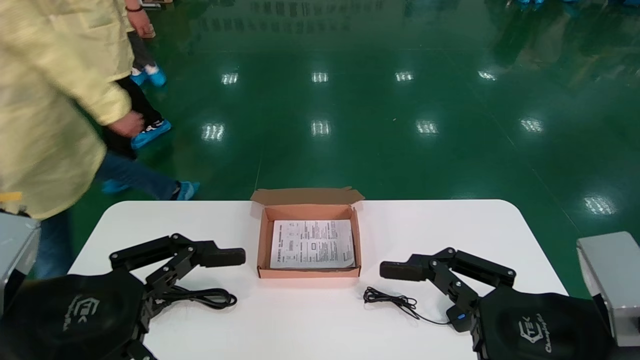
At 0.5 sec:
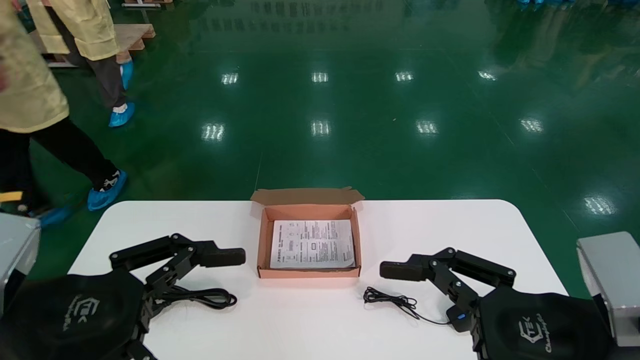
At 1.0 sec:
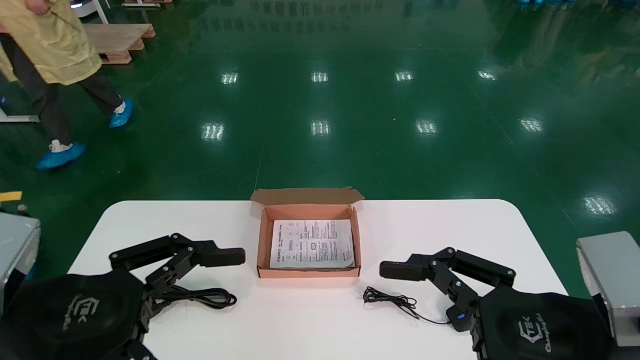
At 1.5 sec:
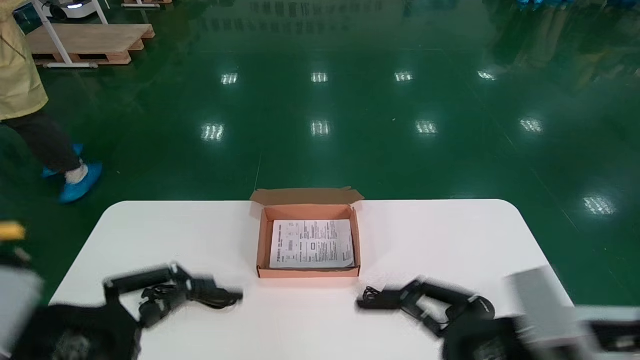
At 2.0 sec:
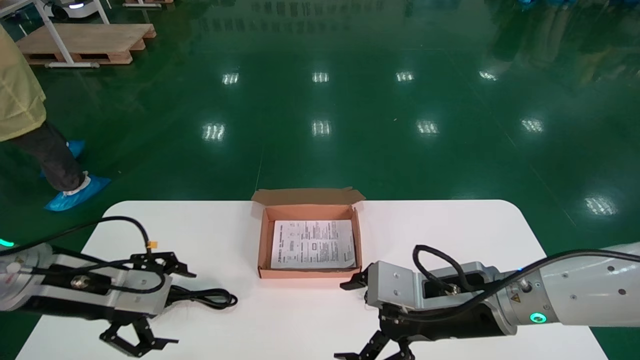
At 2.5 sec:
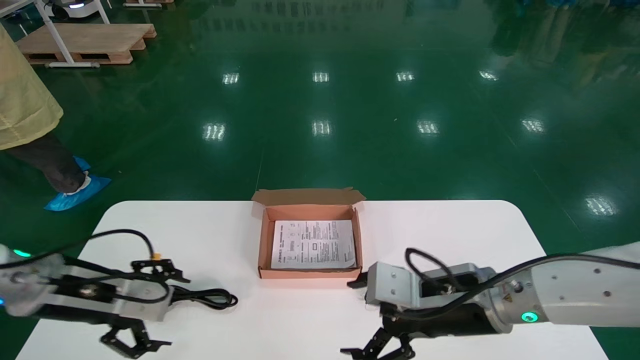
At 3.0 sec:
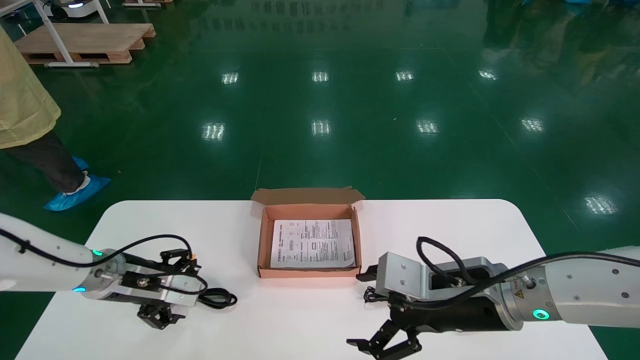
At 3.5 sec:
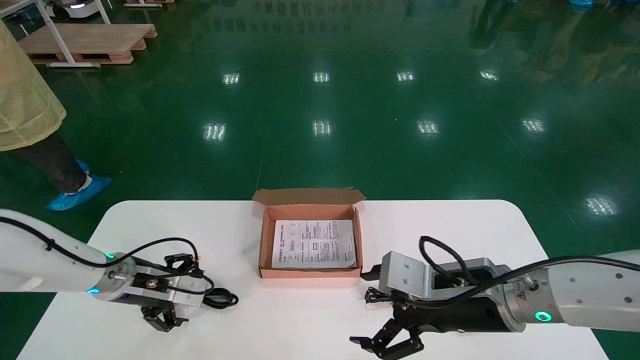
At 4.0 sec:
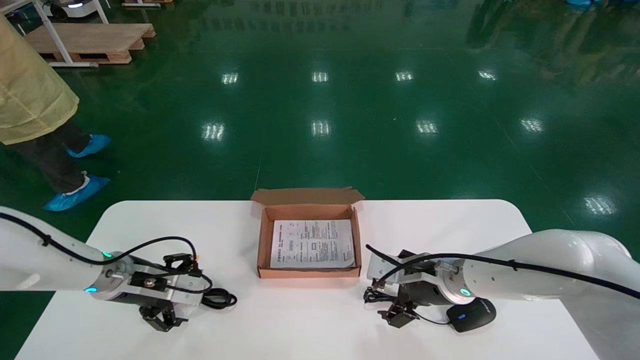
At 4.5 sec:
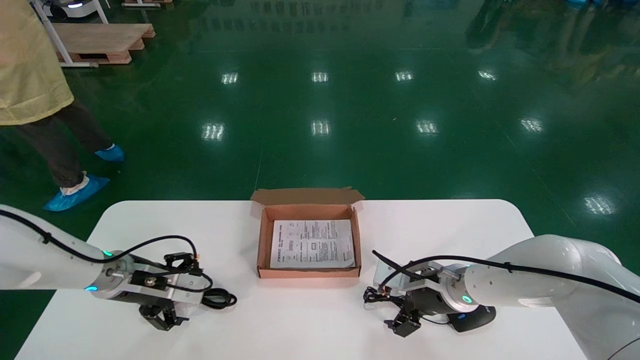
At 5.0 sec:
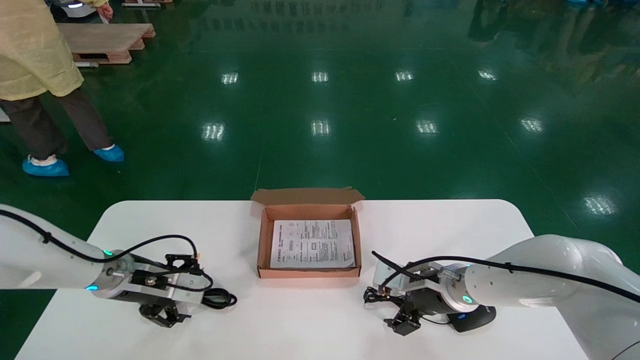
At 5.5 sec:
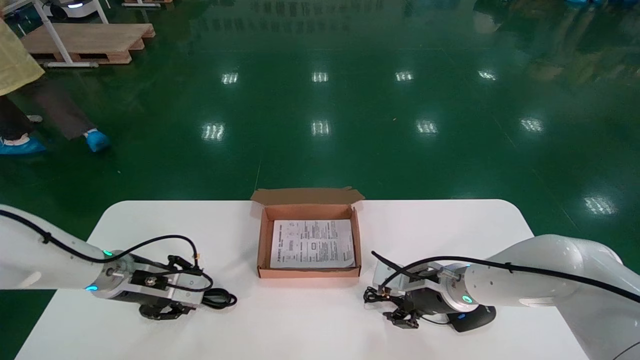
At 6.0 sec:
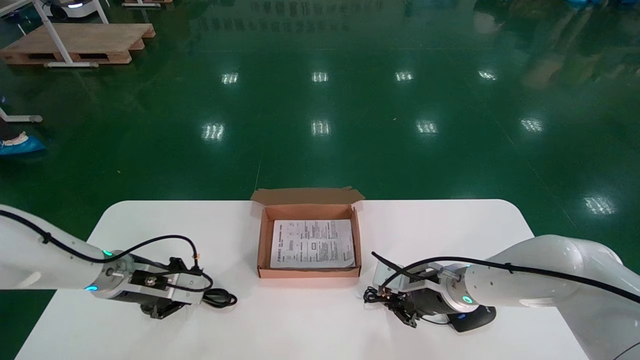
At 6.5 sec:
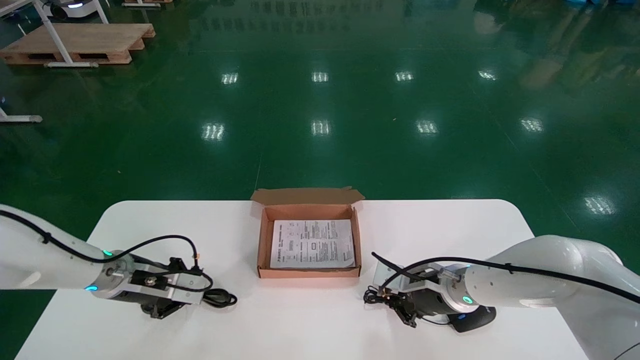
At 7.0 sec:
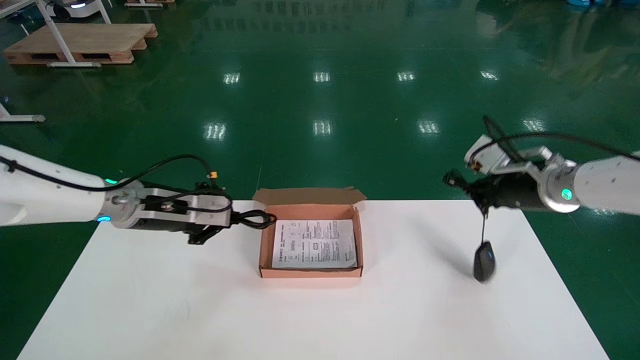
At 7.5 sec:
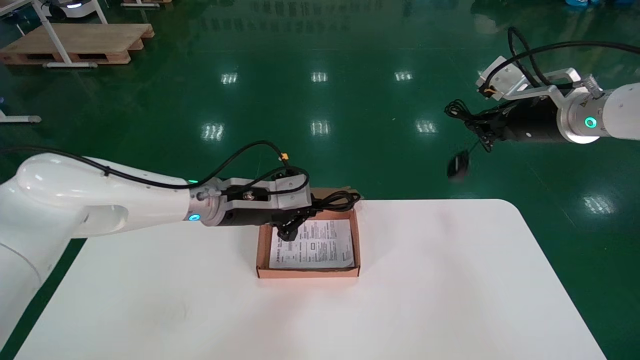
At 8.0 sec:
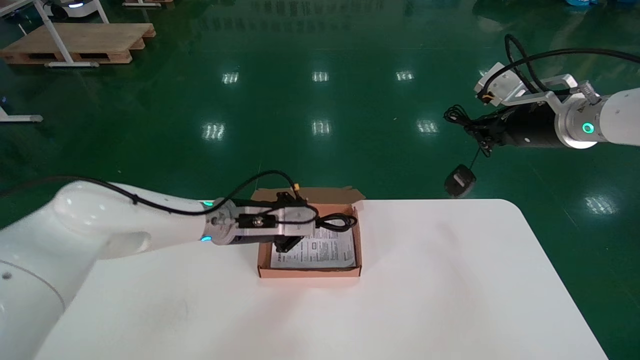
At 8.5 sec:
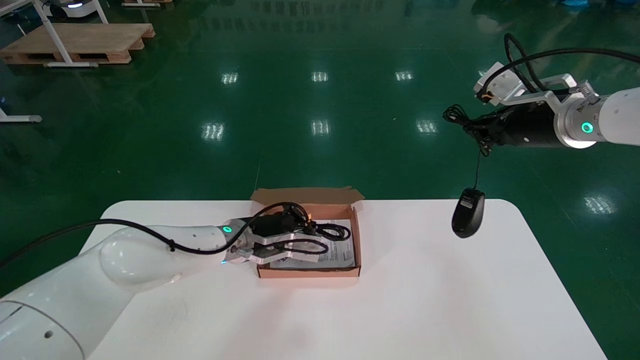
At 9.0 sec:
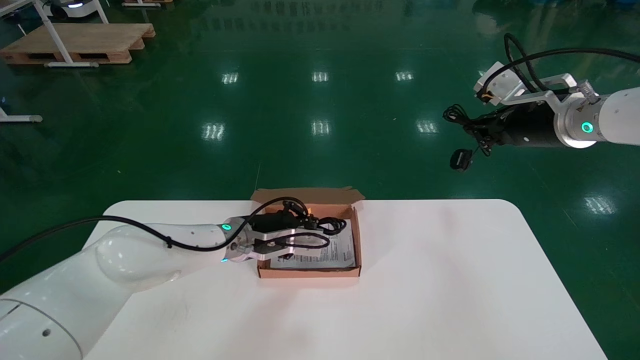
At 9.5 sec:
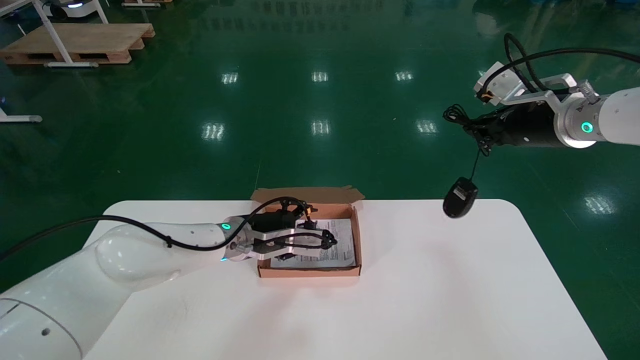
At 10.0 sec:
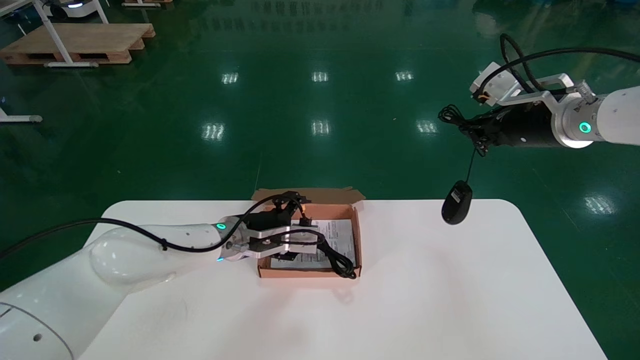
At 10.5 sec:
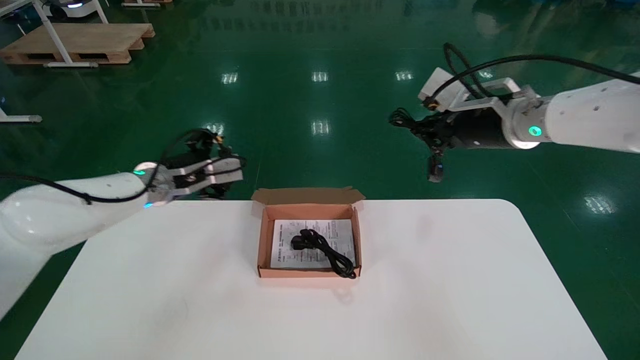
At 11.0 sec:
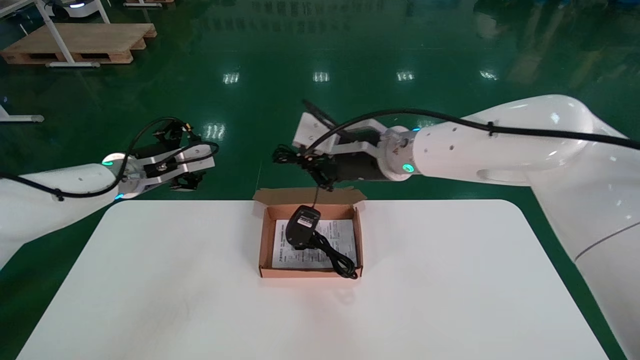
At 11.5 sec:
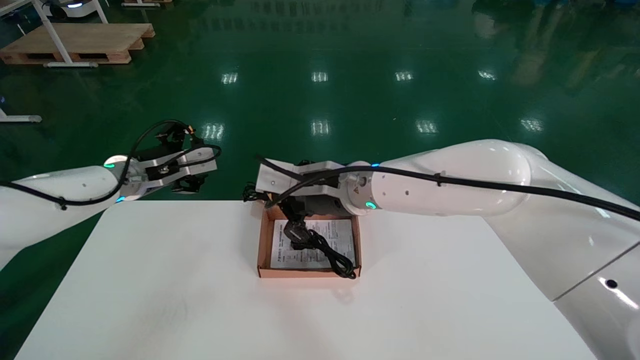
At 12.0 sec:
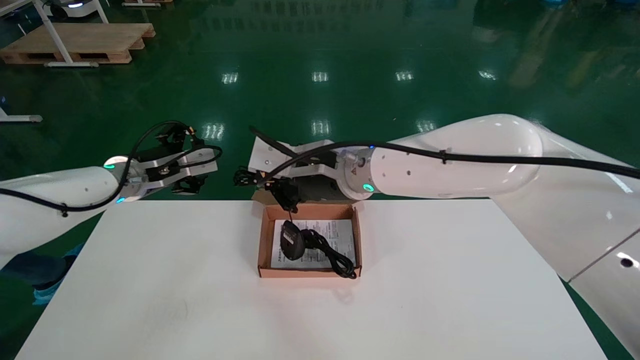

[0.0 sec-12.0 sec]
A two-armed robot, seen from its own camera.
Step, 2.0 sec to 6.5 sec: Simultaneously pick up the mouse and power cord from the accessory packaging area.
0.0 sec to 2.0 sec: The left gripper moves forward, some 10 cm. The right gripper is displaced forward and to the left by roughly 15 cm.
2.0 sec to 4.0 sec: The left gripper goes approximately 15 cm forward and downward, while the right gripper moves forward, some 15 cm.
4.0 sec to 6.0 sec: The left gripper closes its fingers. Meanwhile the right gripper closes its fingers.
6.0 sec to 8.0 sec: The right gripper goes approximately 30 cm upward and to the right. The left gripper is displaced to the right and upward by roughly 20 cm.
8.0 sec to 10.0 sec: The left gripper opens up.
10.0 sec to 12.0 sec: The right gripper moves to the left, roughly 30 cm. Meanwhile the left gripper moves to the left and upward, some 15 cm.

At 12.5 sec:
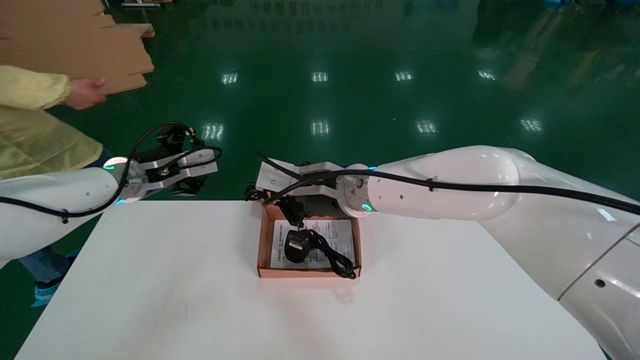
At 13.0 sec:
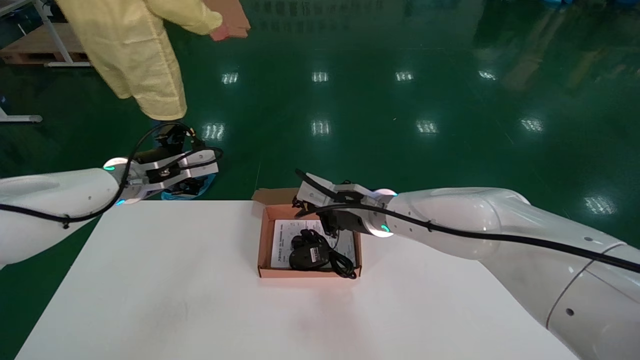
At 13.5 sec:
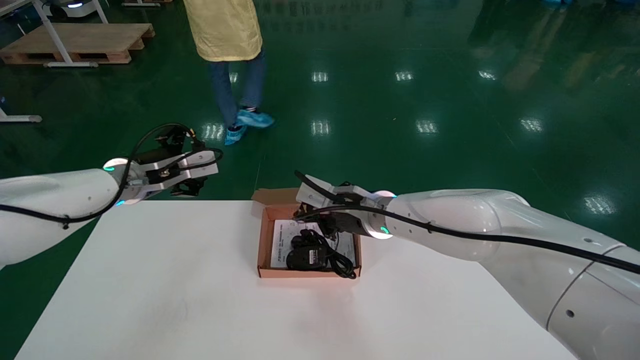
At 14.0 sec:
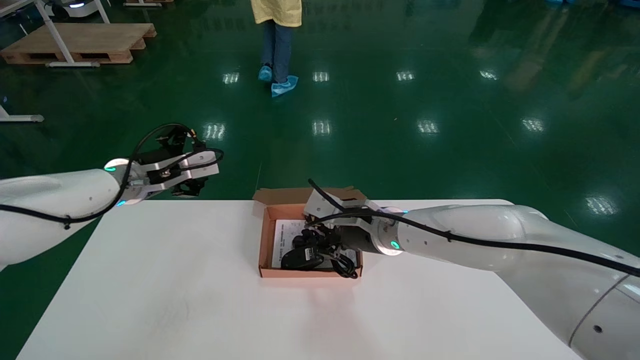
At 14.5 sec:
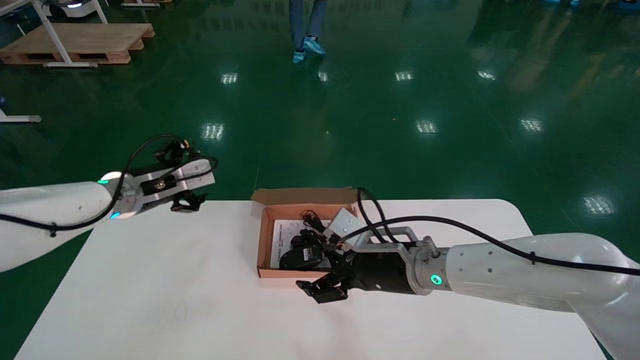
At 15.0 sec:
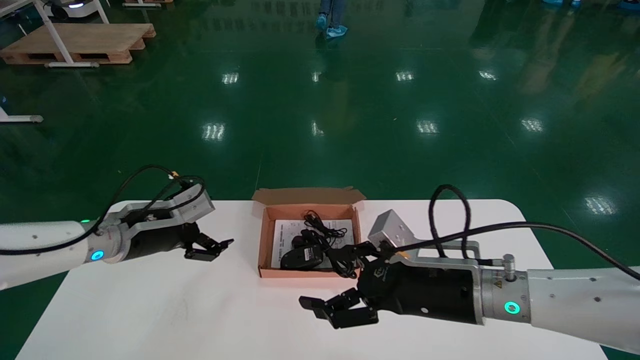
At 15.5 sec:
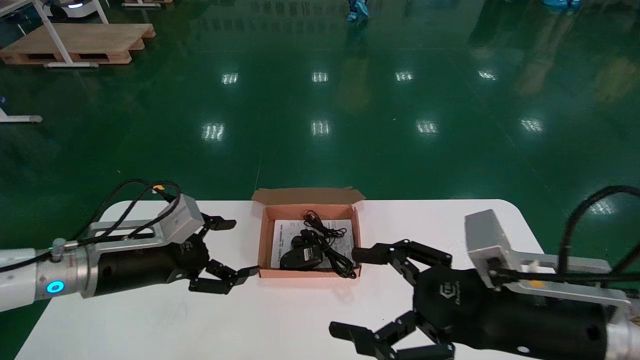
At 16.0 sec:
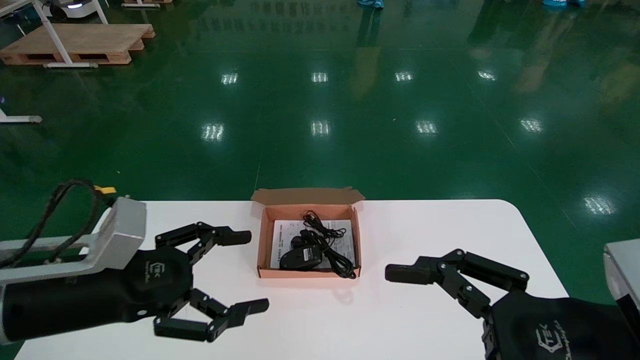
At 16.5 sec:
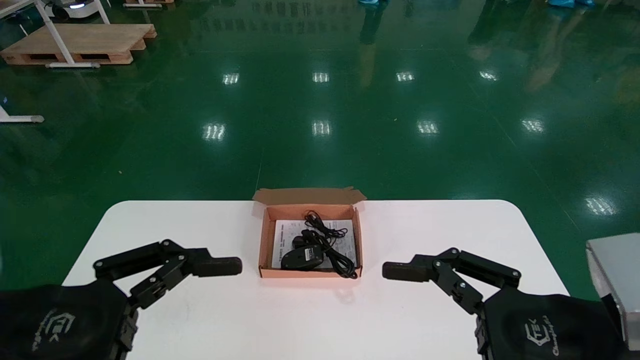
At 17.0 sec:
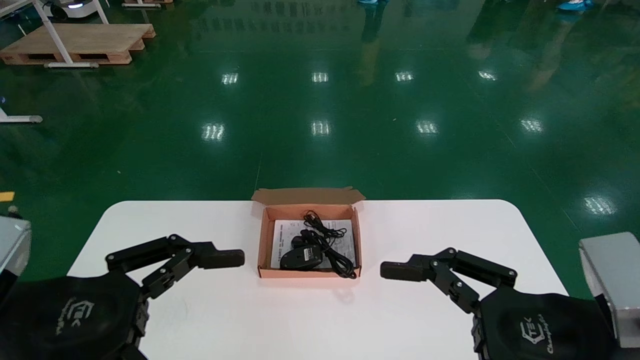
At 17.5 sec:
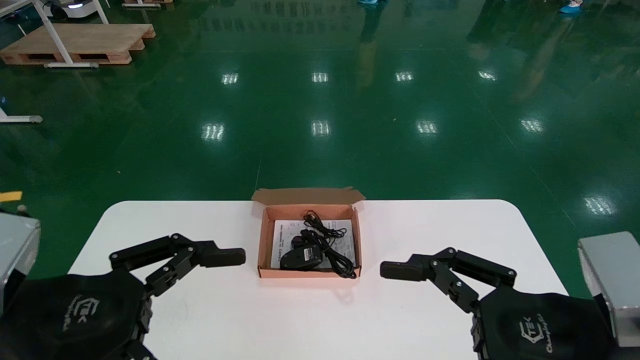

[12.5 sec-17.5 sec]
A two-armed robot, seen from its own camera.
12.5 sec to 15.0 sec: The left gripper goes some 10 cm downward and backward; the right gripper is displaced to the right, downward and backward by approximately 20 cm, and opens up.
15.0 sec to 17.5 sec: The left gripper shifts approximately 25 cm backward, while the right gripper travels backward and to the right by approximately 20 cm.

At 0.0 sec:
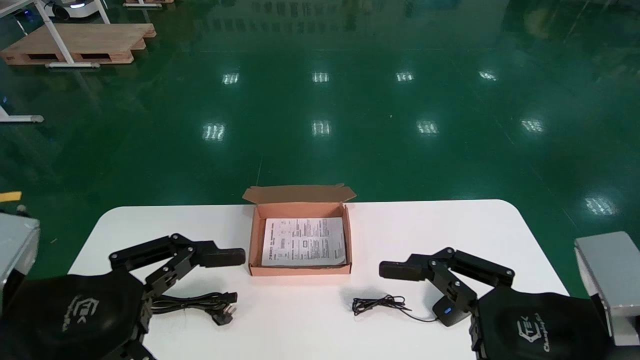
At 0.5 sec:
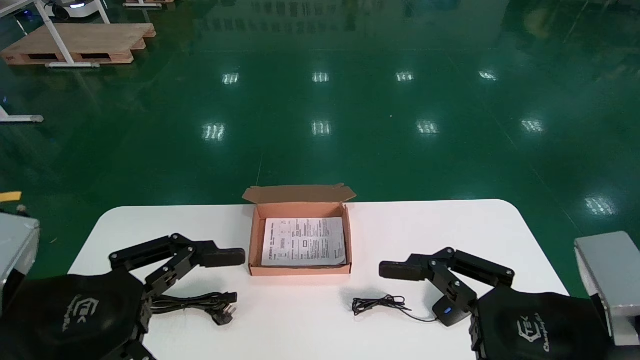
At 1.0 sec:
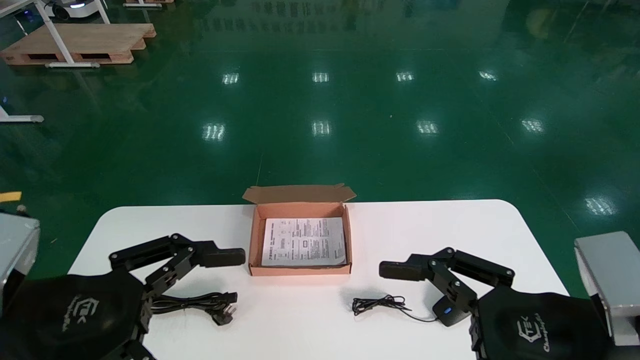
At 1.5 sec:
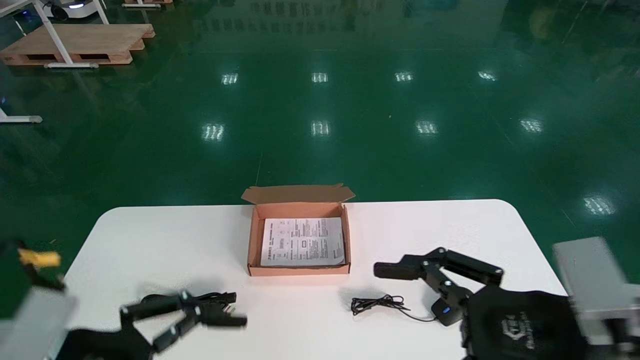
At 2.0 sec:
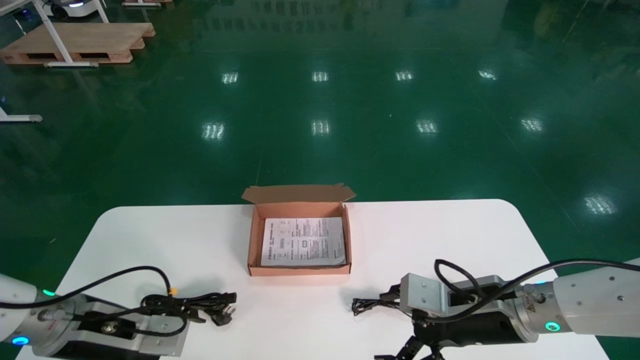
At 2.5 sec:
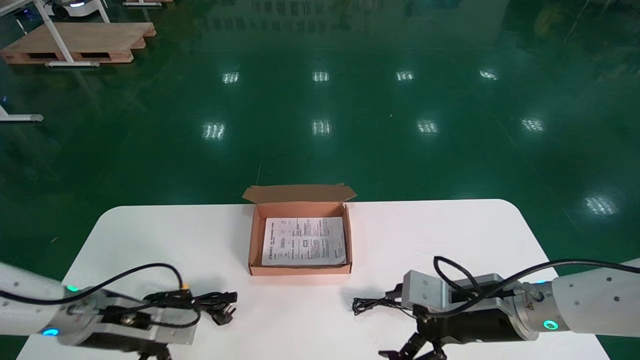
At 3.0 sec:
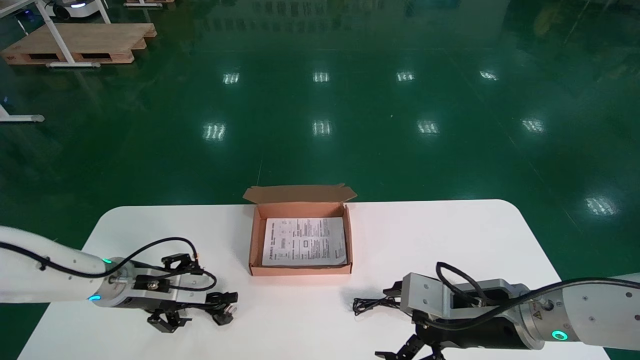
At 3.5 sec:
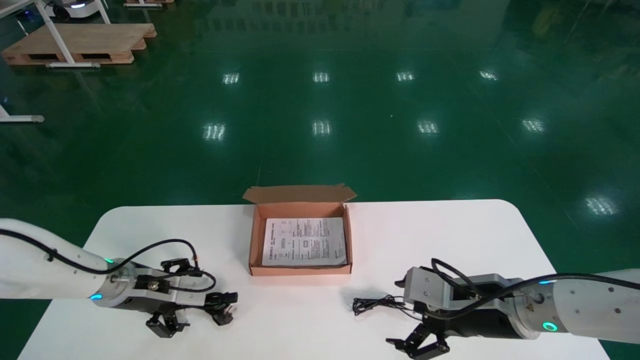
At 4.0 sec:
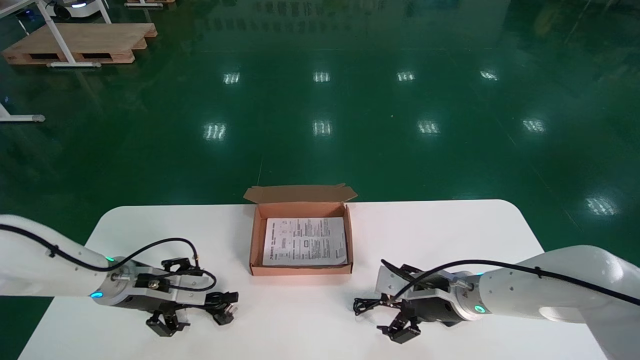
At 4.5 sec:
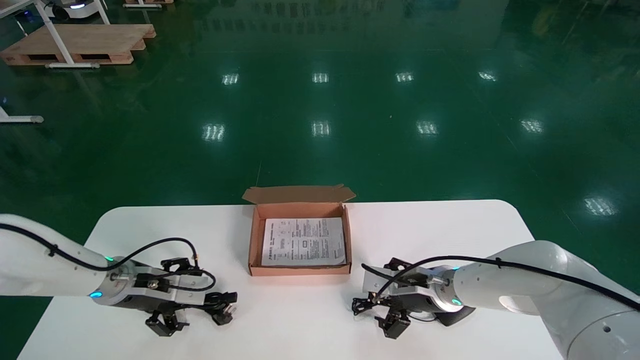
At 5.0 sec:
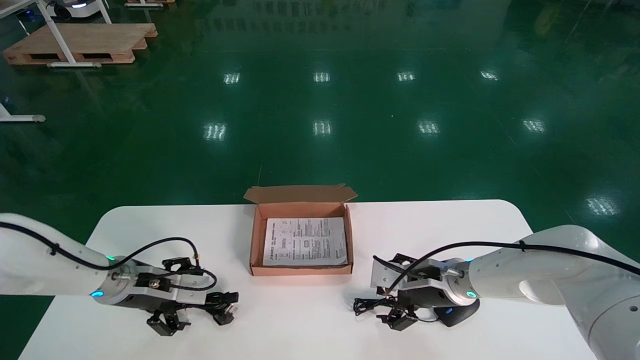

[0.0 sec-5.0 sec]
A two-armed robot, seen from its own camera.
0.0 sec to 2.5 sec: The left gripper goes about 20 cm forward and downward. The right gripper travels forward by approximately 15 cm.
2.5 sec to 5.0 sec: The right gripper shifts roughly 10 cm forward. The left gripper shifts some 5 cm forward.
